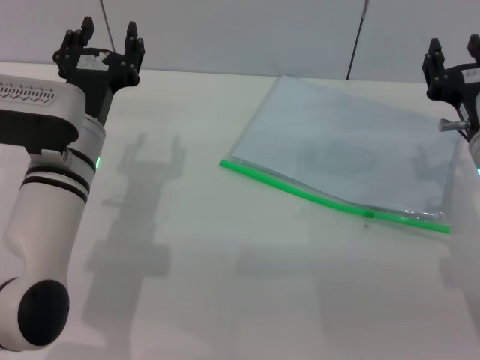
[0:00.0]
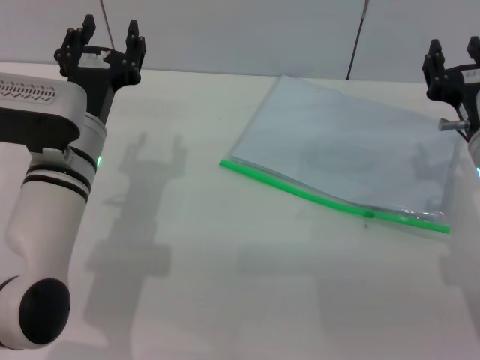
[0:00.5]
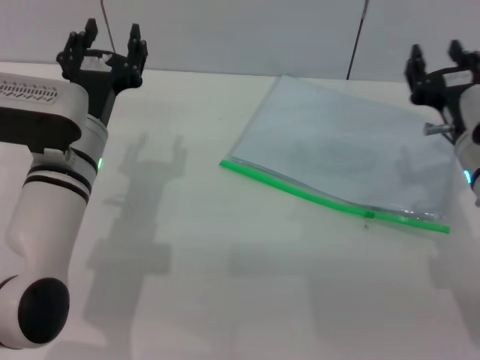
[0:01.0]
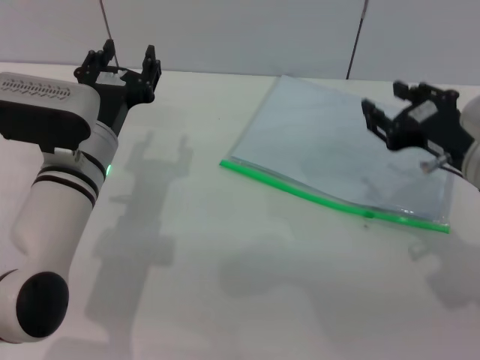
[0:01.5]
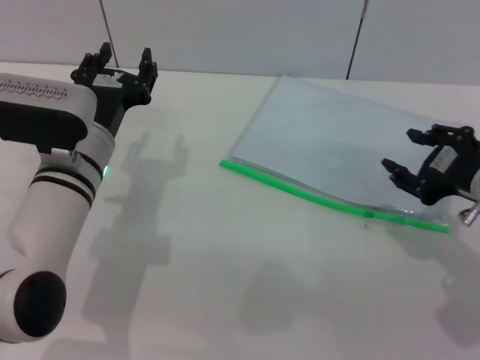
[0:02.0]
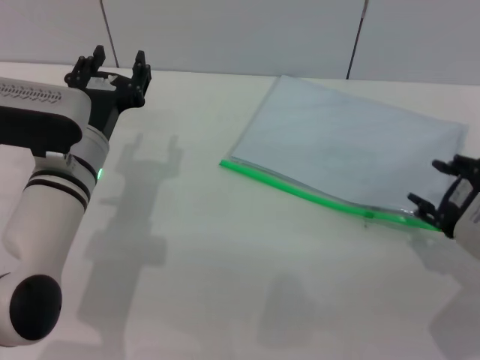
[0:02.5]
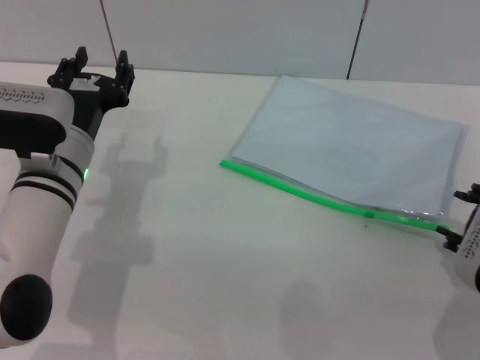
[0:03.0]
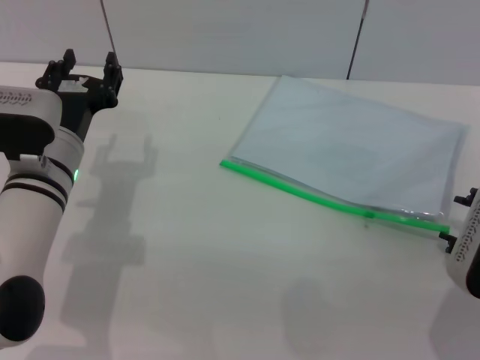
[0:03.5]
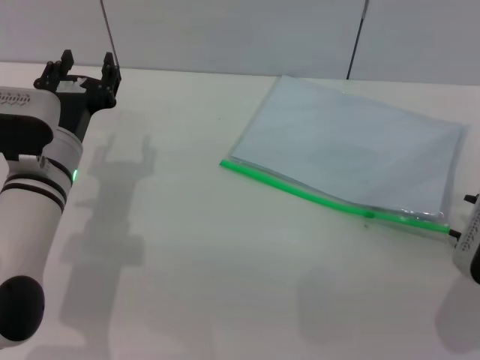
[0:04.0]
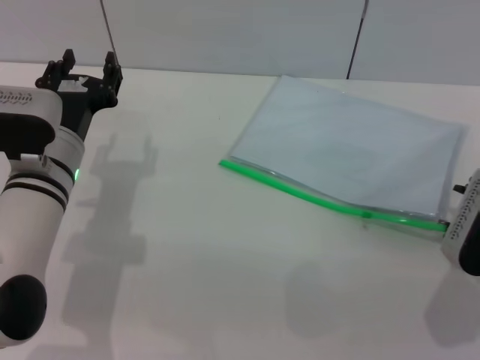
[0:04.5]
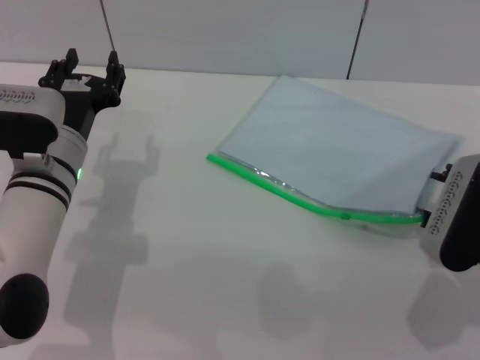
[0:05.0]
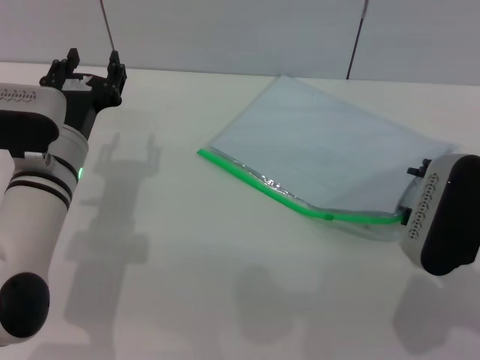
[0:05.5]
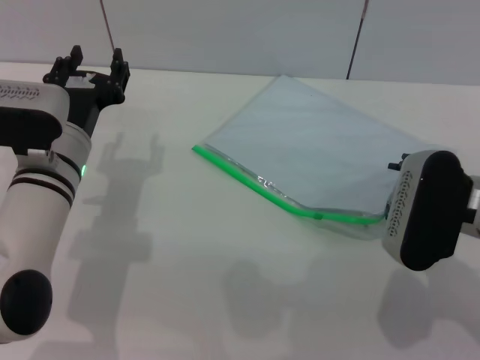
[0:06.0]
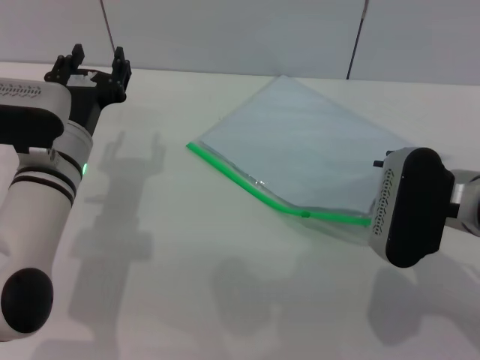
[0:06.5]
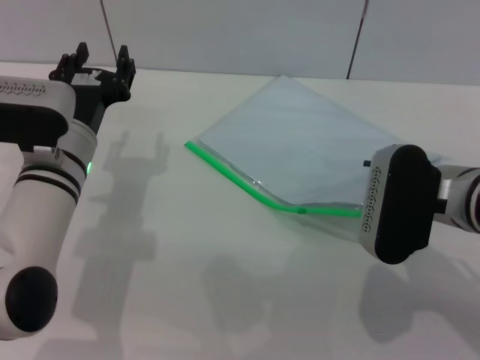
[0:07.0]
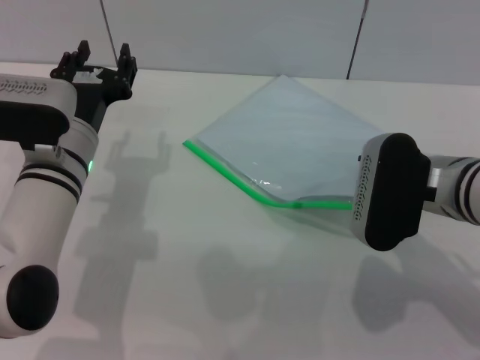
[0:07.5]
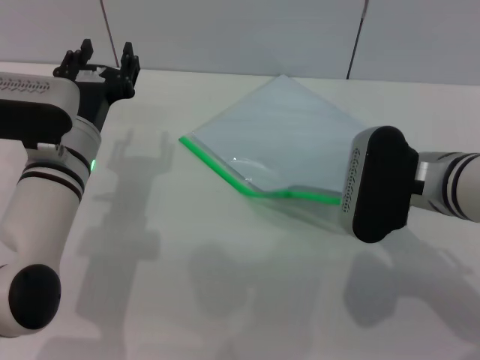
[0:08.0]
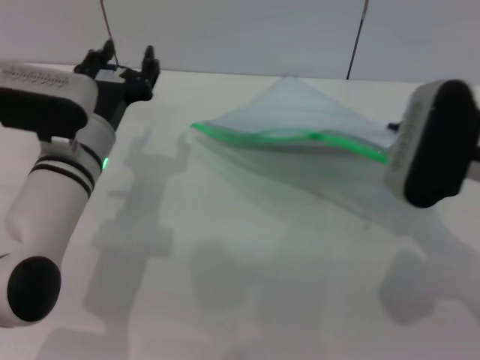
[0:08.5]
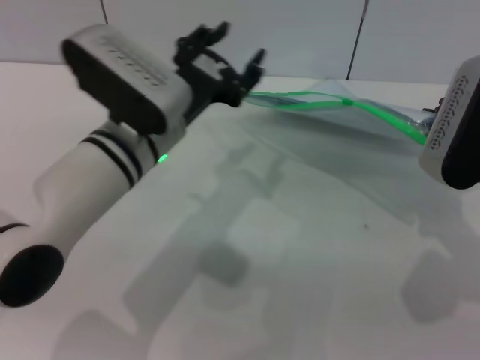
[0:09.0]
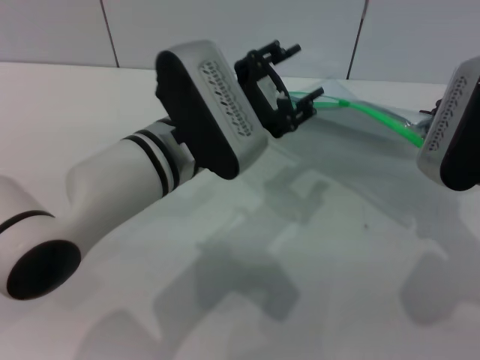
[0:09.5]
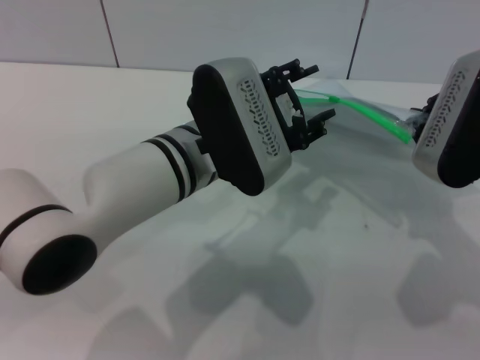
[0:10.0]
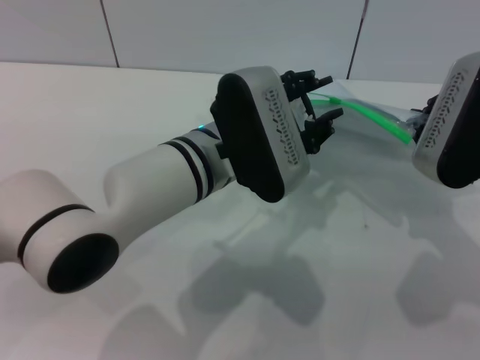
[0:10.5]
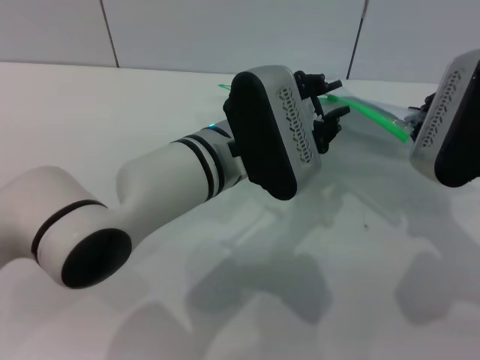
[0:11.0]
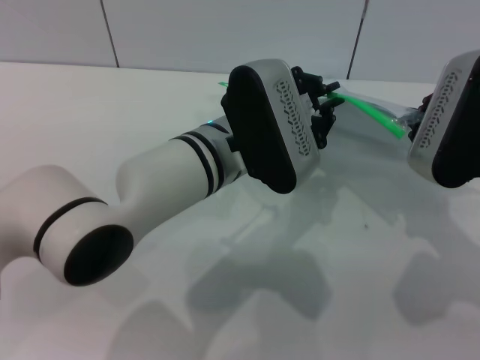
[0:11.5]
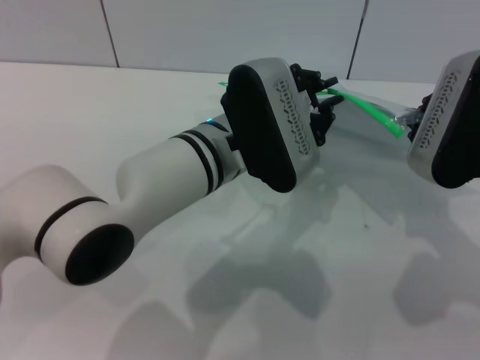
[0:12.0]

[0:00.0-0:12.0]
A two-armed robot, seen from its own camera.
Step, 0:00.0 to 0:08.5: Pick up the transparent plastic bag with the right gripper.
0:00.0 to 0:02.0: The right gripper changes place by approximately 5 cm.
0:04.0 to 0:06.0: The right gripper moves to the left, about 5 cm.
0:06.0 to 0:08.0: The right gripper closes.
0:08.0 to 0:10.0: The left gripper moves to the right and upward, about 15 cm, while the right gripper goes some 5 cm upward.
0:10.0 to 0:12.0: The left gripper closes up.

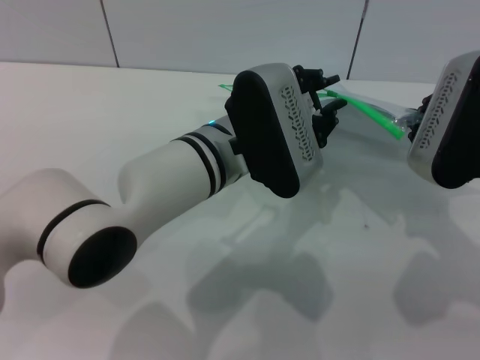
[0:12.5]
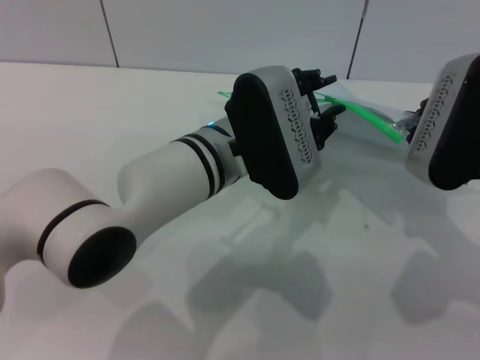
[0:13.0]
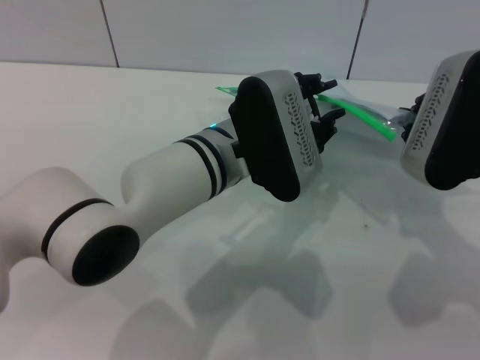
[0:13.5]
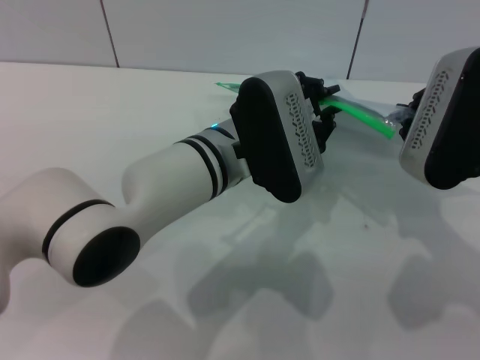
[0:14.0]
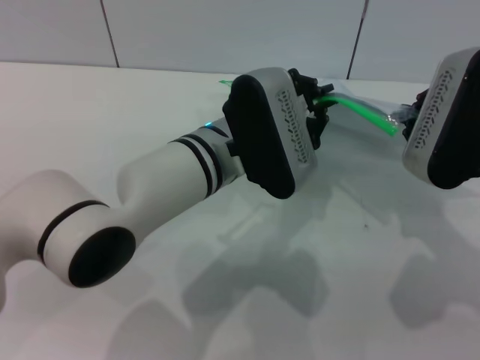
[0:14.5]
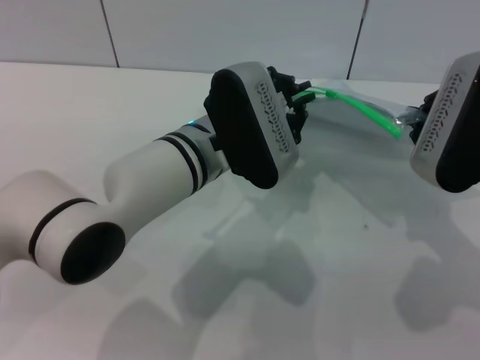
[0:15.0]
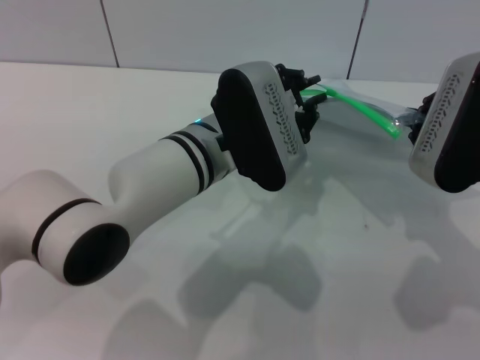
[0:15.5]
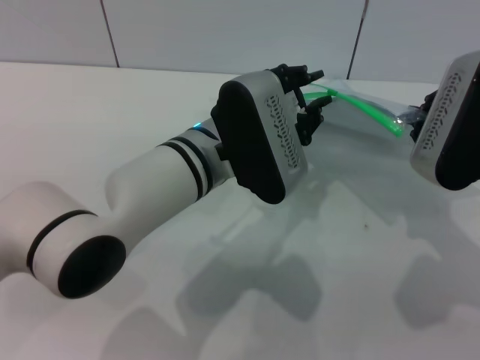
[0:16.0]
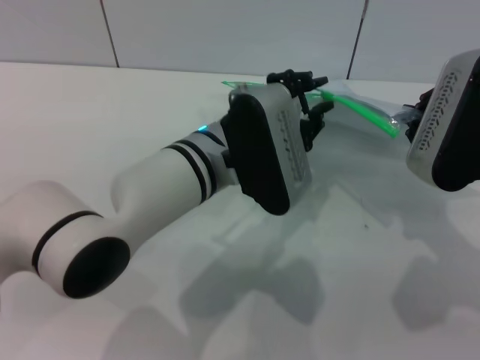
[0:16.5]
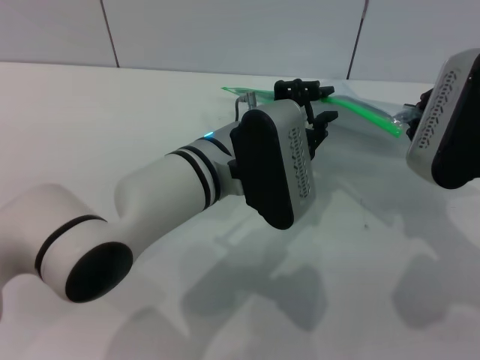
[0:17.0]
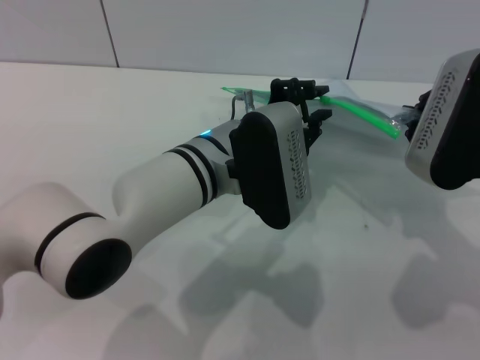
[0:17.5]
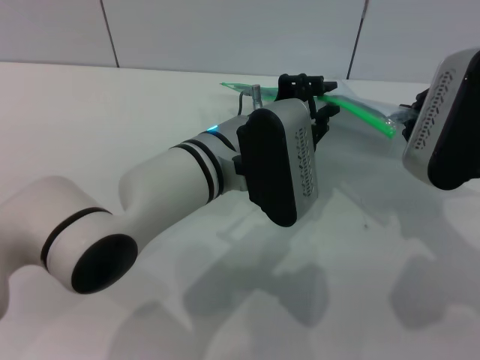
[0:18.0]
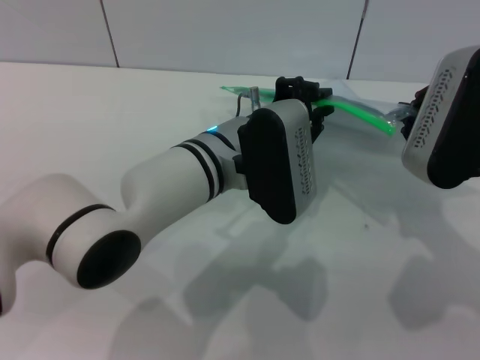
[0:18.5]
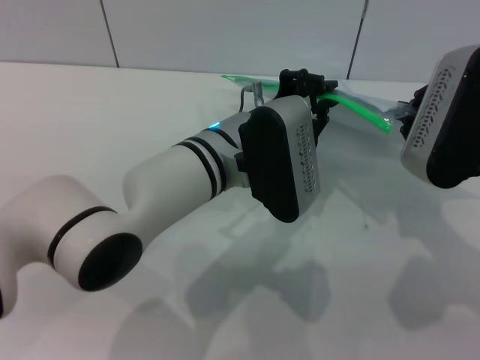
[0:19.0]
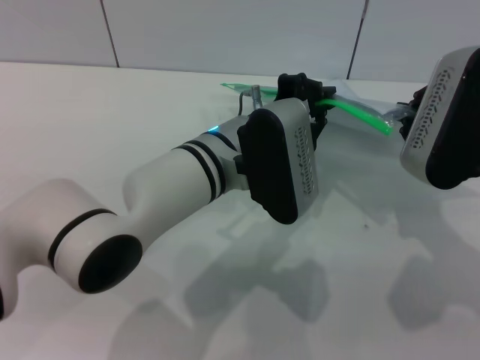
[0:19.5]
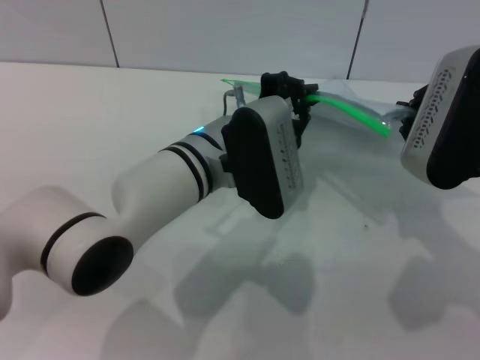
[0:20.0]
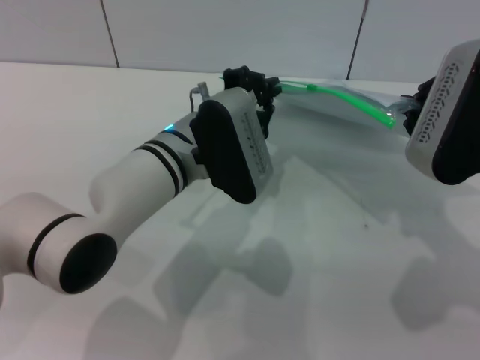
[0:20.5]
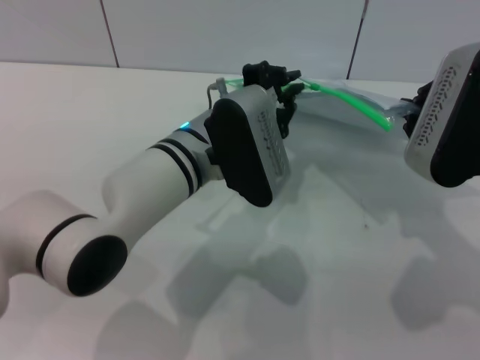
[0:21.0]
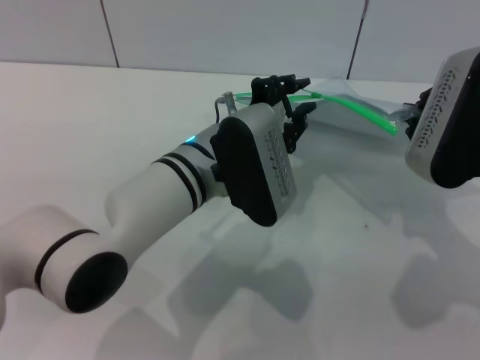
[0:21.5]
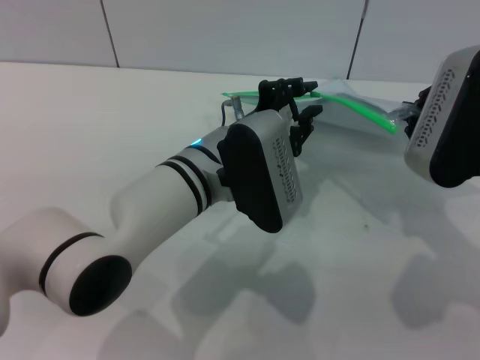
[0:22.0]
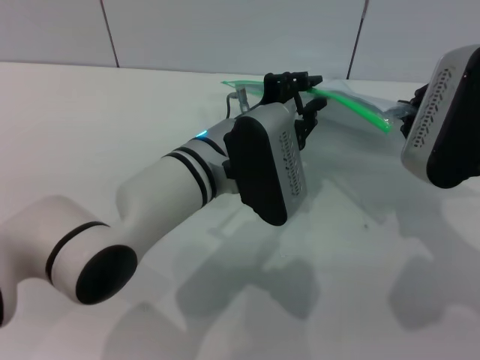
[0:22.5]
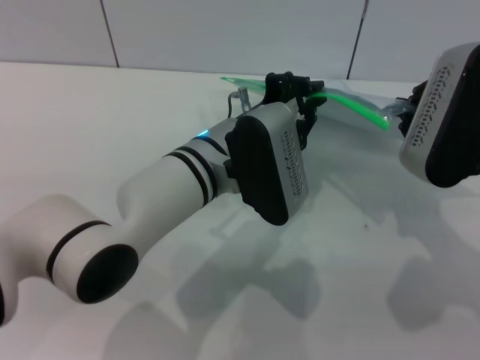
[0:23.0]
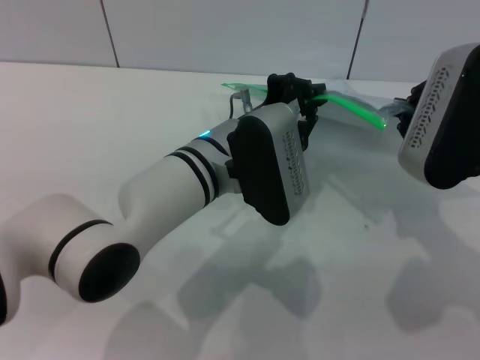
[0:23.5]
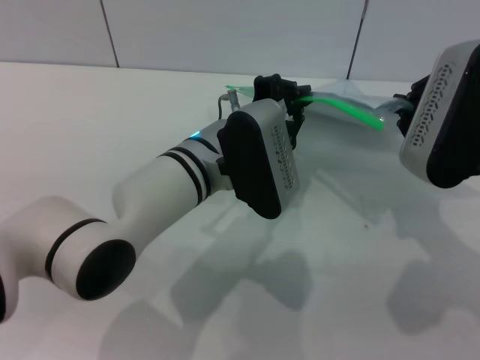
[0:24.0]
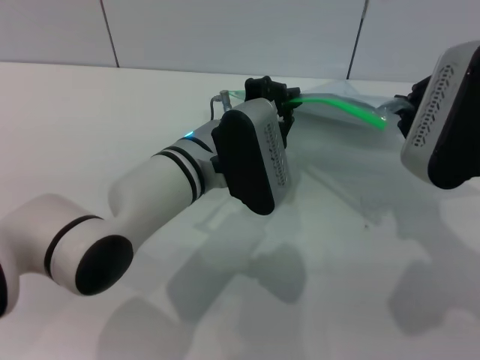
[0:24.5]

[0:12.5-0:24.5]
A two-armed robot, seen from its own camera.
0:12.5 to 0:14.5: Neither gripper changes place.
0:14.5 to 0:16.5: The left gripper opens up.
0:16.5 to 0:20.5: The grippers move only a little.
0:20.5 to 0:22.5: The left gripper opens its fingers.
0:22.5 to 0:24.5: The left gripper closes its fingers.

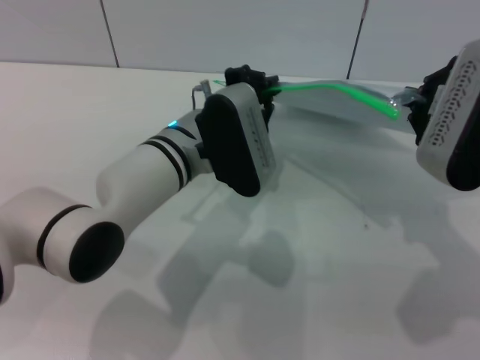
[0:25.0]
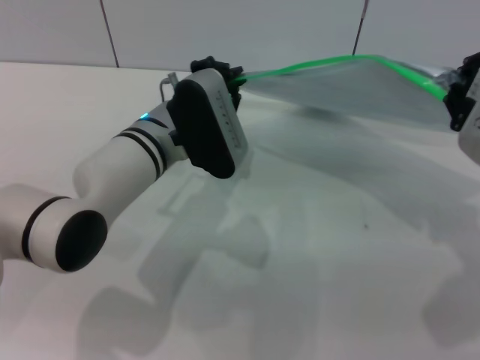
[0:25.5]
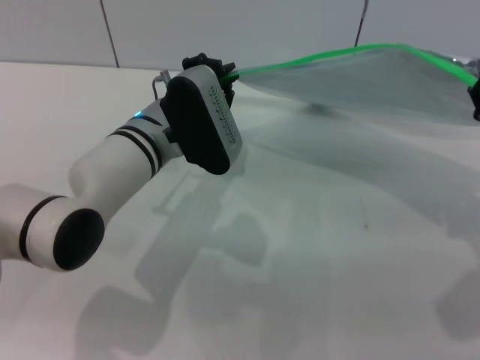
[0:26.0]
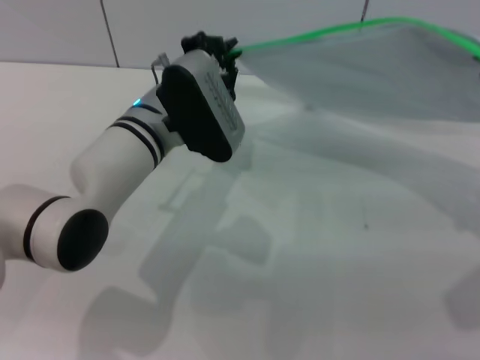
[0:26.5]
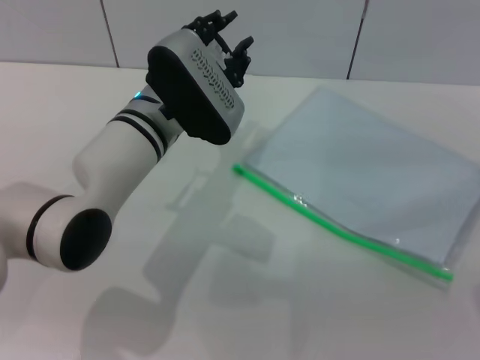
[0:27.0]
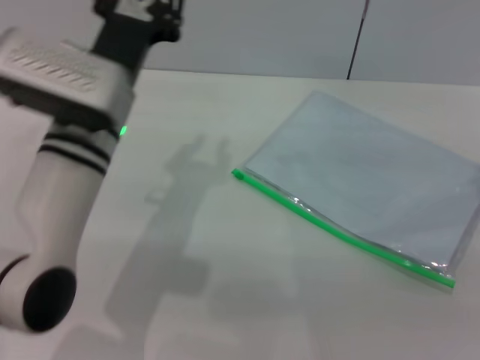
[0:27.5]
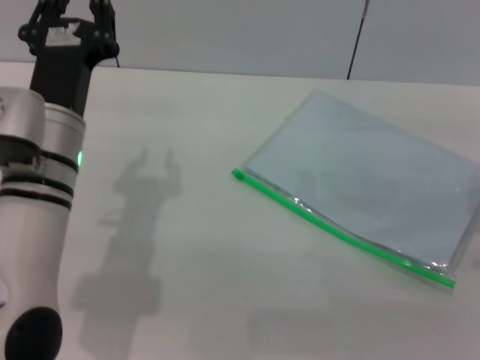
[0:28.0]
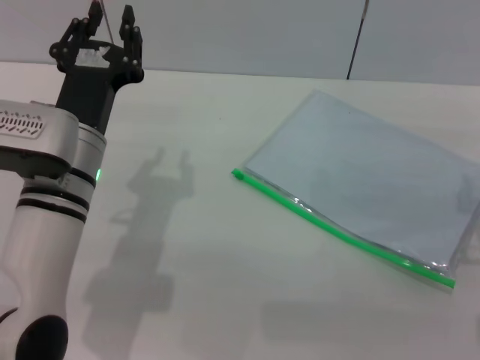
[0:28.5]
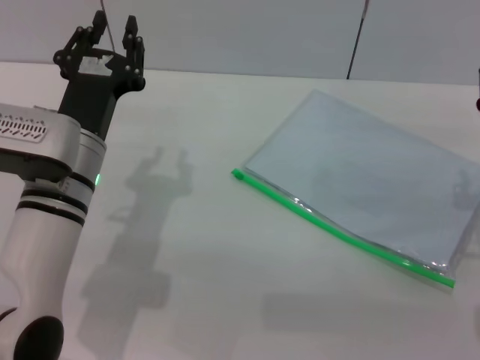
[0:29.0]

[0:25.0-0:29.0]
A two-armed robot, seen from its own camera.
Step, 0:27.0 to 0:27.5: Place the transparent plastic bag.
0:25.0 to 0:27.0: The right gripper moves to the right, roughly 5 cm.
0:27.0 to 0:29.0: The right gripper moves downward, approximately 15 cm; the left gripper is displaced backward and to the left by some 10 cm.
